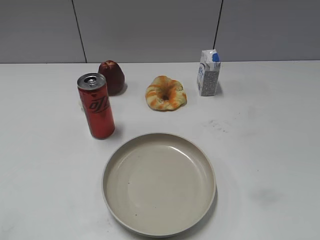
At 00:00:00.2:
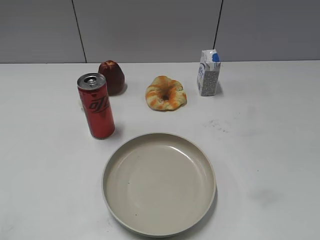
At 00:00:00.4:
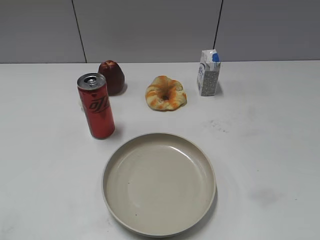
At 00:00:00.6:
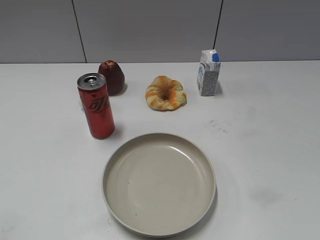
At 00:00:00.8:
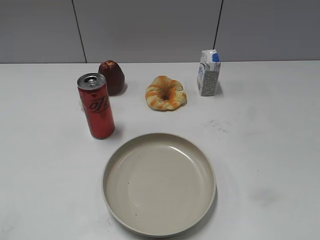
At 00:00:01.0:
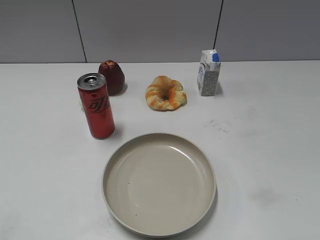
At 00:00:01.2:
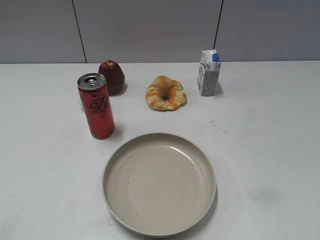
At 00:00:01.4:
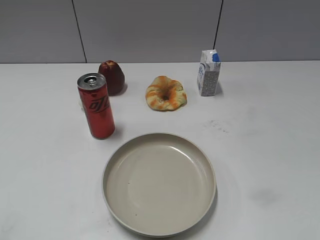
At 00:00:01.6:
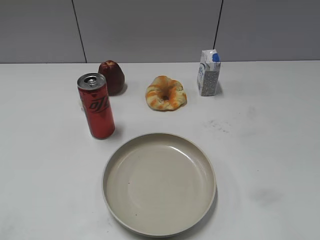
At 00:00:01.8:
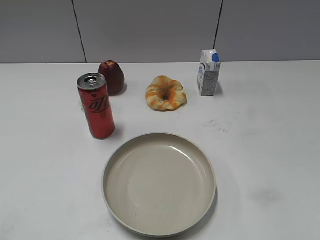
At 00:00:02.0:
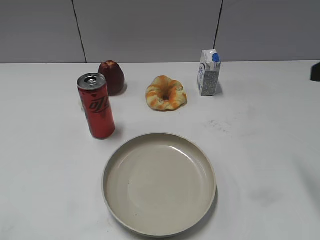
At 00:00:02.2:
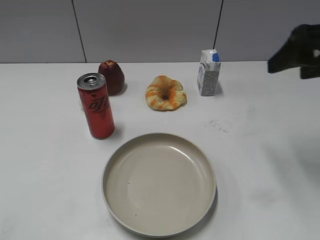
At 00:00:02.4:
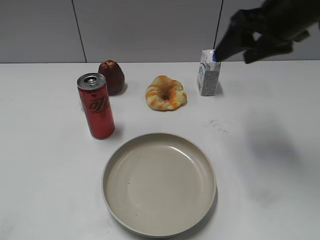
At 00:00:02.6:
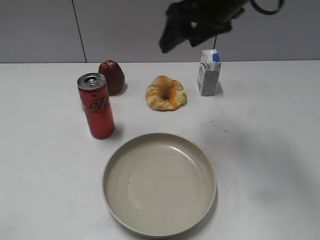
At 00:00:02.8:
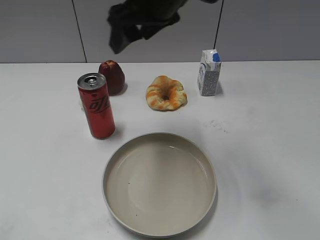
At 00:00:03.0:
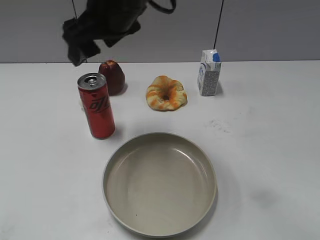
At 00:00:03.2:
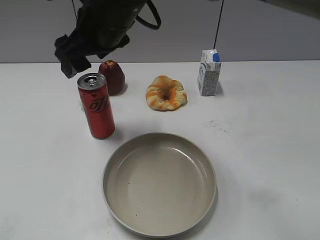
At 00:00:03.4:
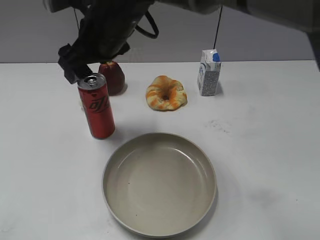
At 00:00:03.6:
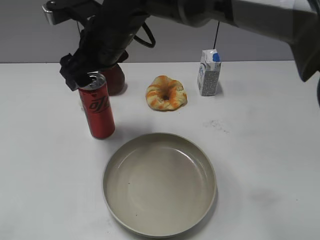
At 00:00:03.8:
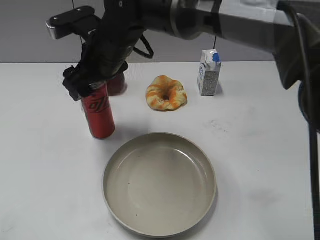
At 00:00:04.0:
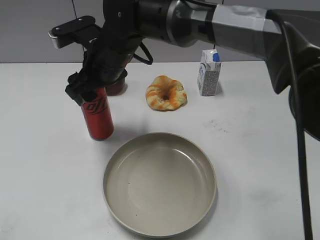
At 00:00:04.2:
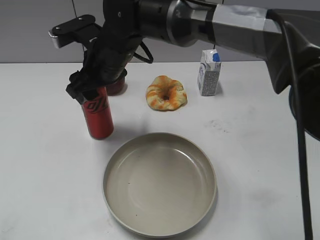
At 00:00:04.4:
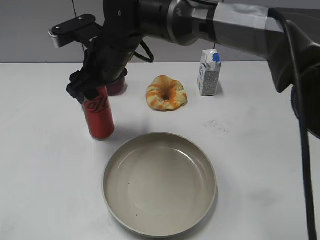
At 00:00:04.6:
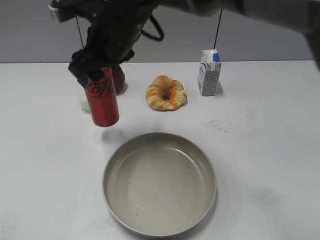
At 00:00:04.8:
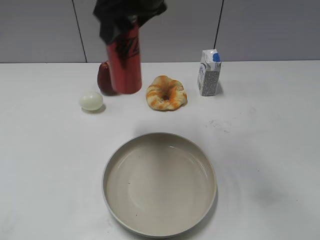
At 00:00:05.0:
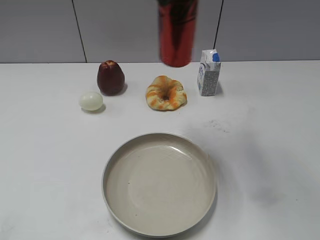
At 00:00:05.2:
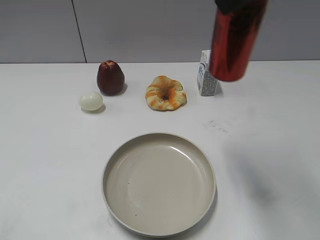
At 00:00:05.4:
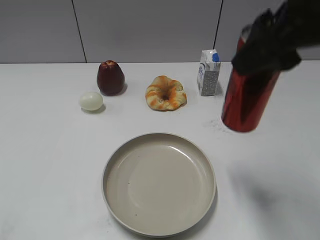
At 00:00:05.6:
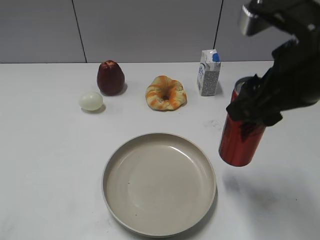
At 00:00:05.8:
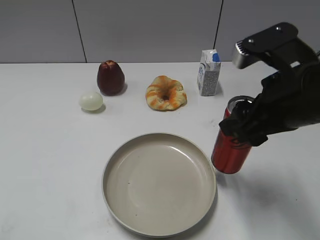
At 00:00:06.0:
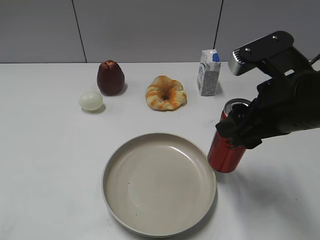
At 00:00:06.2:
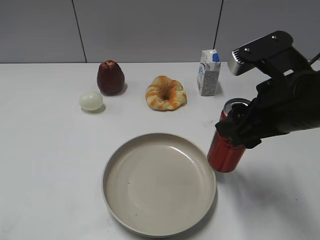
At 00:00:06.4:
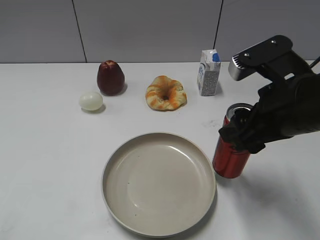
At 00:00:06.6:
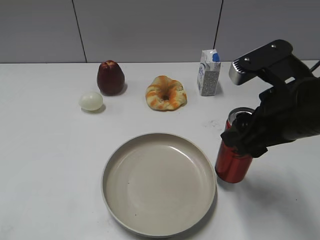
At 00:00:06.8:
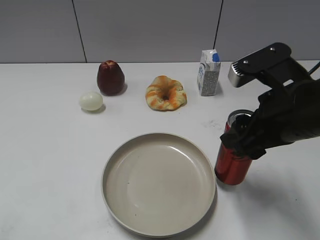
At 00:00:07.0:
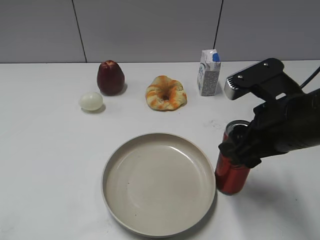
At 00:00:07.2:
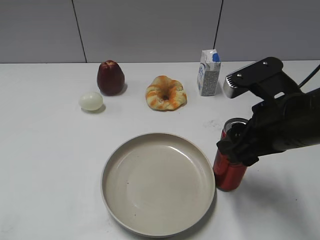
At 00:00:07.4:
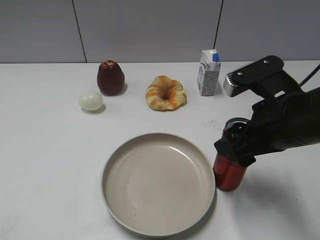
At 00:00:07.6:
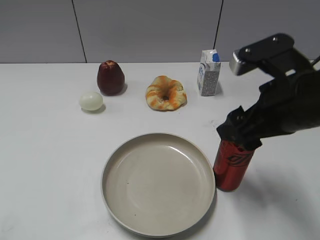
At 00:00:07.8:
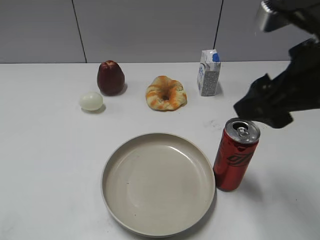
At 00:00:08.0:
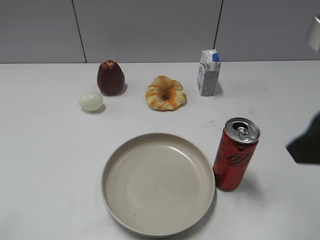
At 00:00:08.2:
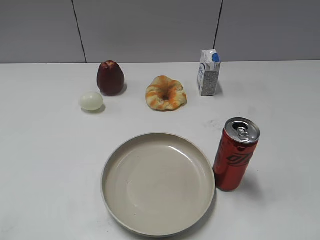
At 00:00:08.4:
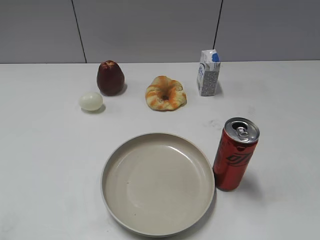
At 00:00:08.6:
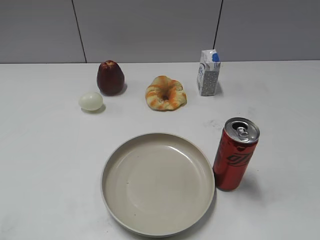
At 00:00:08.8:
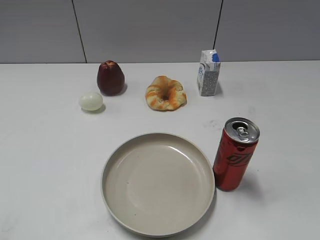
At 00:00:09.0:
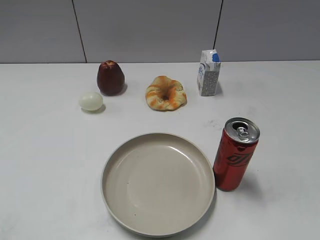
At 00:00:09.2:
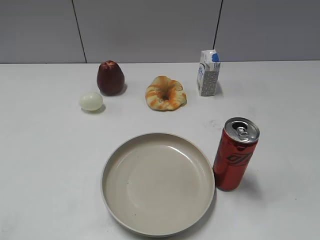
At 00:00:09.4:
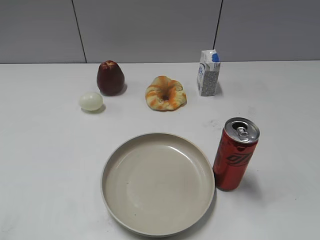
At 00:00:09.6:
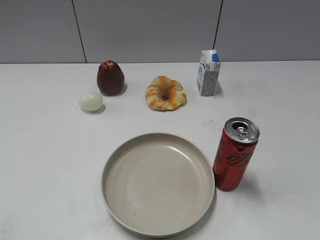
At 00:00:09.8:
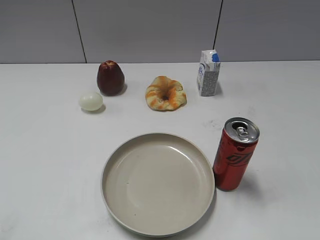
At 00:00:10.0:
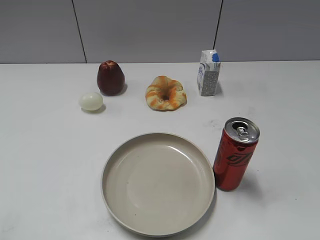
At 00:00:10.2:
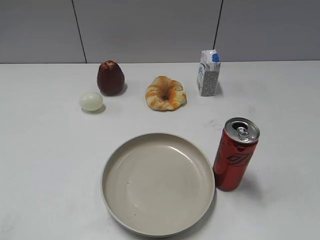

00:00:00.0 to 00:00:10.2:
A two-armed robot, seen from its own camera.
Step, 00:00:01.2 to 00:00:04.0: Grasp the cola with right gripper.
Step, 00:00:04.2 to 00:00:07.8: Place the cola on the table with right gripper.
00:00:01.4 to 00:00:03.0: The right gripper goes approximately 50 cm to the left and forward, and opens its fingers.
00:00:03.0 to 00:00:04.4: The right gripper heads downward, covering some 10 cm, and closes up.
00:00:04.4 to 00:00:05.8: The right gripper heads to the right and backward, covering some 30 cm.
00:00:05.8 to 00:00:07.2: The grippers stay close to where they were, moving slightly.
00:00:07.2 to 00:00:08.8: The right gripper is displaced backward and to the right by approximately 20 cm, and opens up.

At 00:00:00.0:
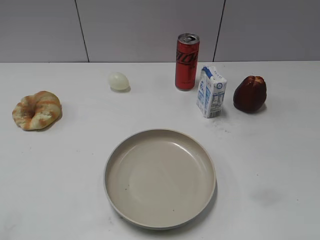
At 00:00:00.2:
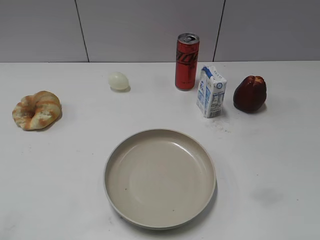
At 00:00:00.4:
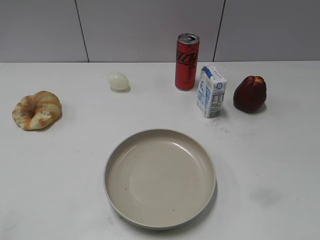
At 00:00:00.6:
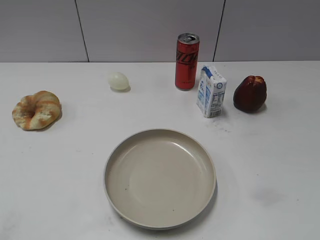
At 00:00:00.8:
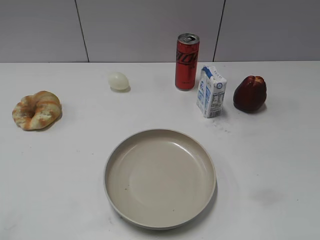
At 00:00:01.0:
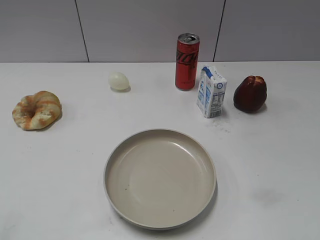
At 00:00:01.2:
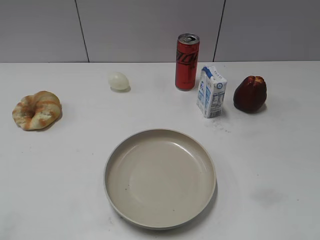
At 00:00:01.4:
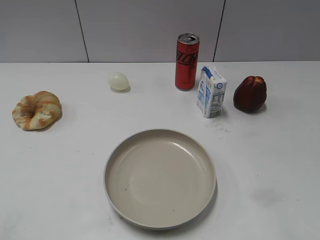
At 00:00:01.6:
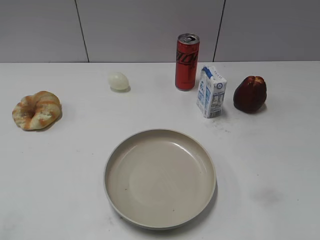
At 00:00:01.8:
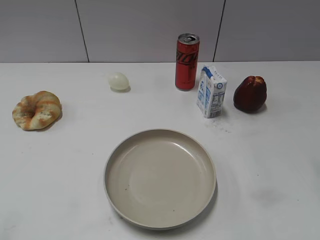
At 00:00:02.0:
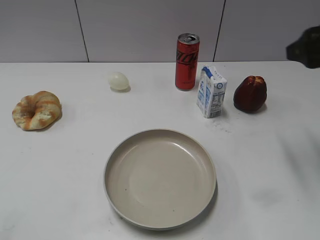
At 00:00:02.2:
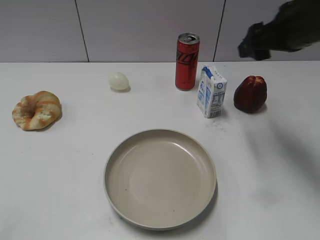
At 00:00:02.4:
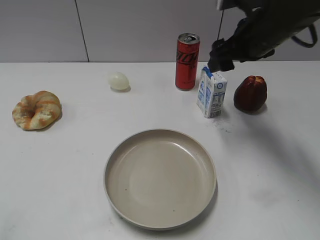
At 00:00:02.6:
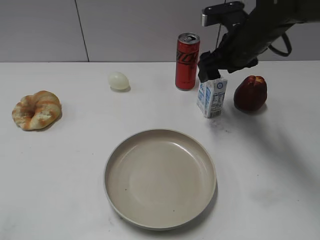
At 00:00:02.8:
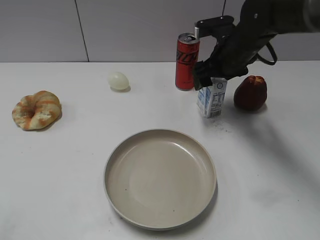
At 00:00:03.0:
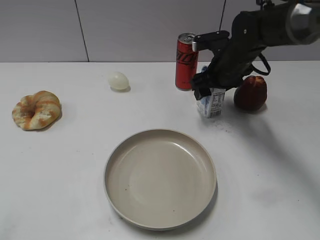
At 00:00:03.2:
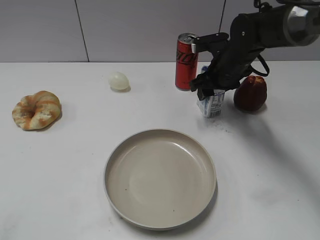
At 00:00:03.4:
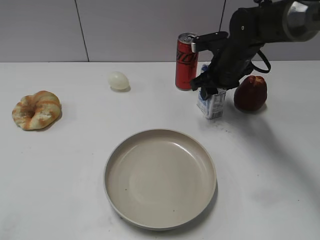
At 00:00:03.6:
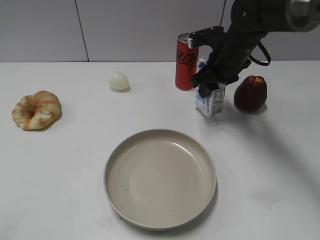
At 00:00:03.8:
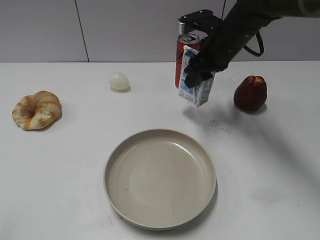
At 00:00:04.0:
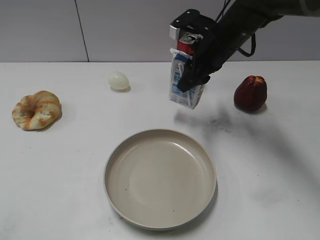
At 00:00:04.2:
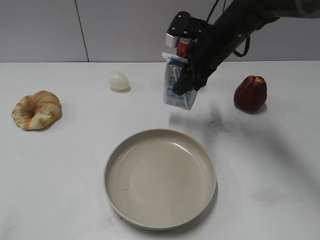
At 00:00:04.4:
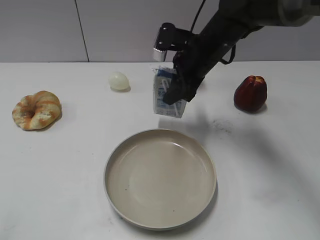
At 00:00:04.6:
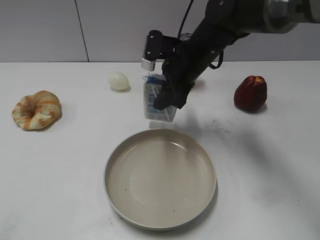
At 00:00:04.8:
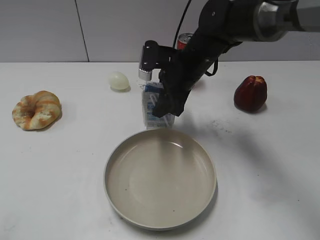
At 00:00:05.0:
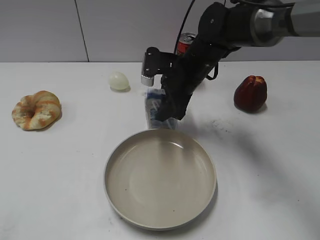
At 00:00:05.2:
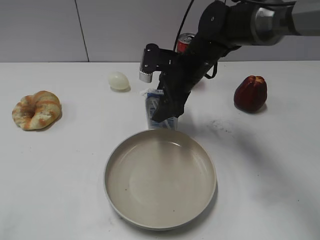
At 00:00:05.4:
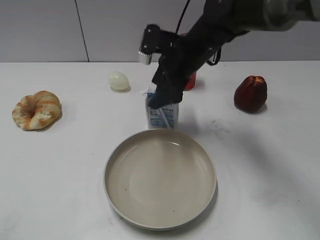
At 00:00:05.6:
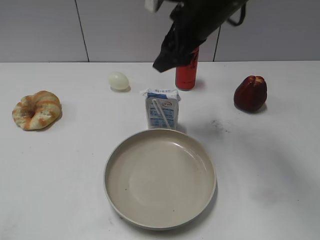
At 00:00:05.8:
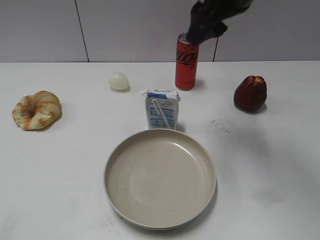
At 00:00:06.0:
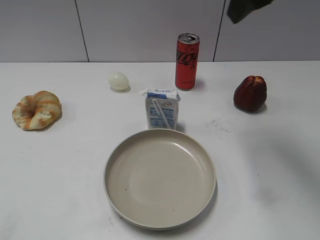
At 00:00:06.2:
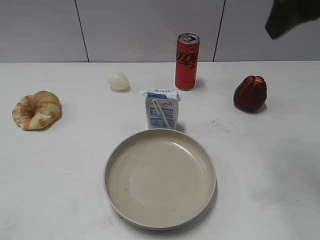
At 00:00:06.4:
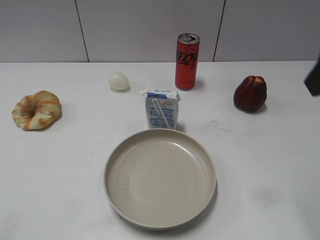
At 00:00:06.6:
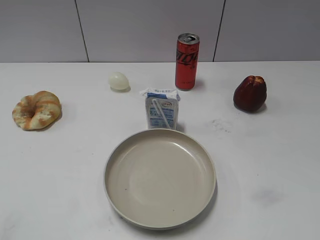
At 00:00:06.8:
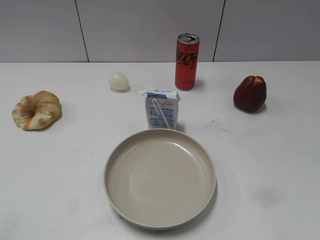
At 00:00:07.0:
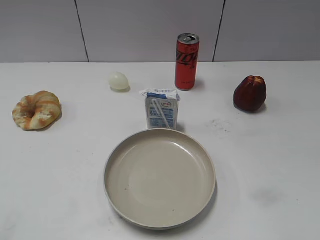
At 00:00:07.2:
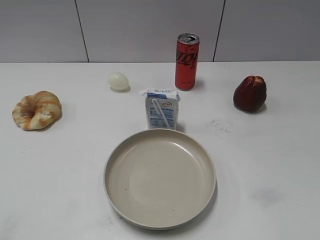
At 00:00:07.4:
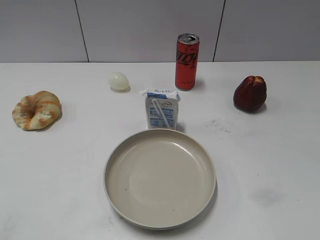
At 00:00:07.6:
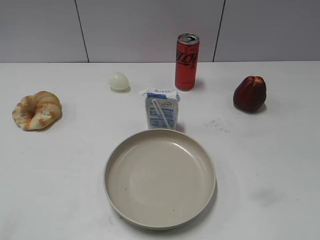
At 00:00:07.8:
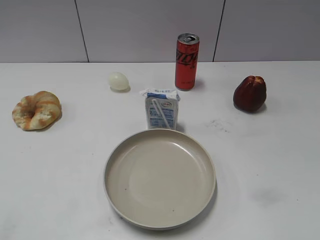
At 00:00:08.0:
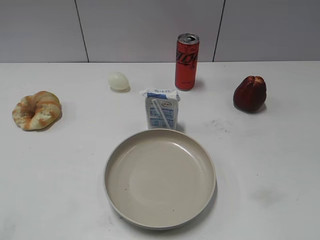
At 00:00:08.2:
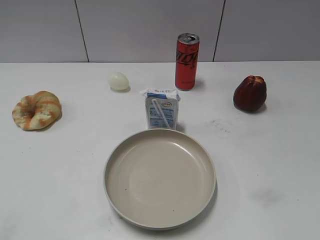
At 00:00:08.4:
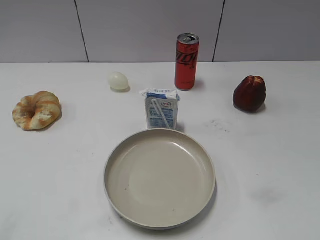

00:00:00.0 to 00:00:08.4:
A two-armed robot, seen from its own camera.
Step, 00:00:01.0 to 00:00:03.4: Grasp the milk with right gripper.
Step, 00:00:03.6 to 00:00:05.2: Place the milk on the table with right gripper.
00:00:01.4 to 00:00:02.8: The right gripper moves forward and to the left, some 40 cm.
00:00:02.8 to 00:00:04.2: The right gripper closes.
00:00:04.2 to 00:00:05.6: The right gripper is displaced upward by some 10 cm, and opens its fingers.
00:00:05.6 to 00:00:07.0: The right gripper is displaced backward and to the right by about 40 cm.
